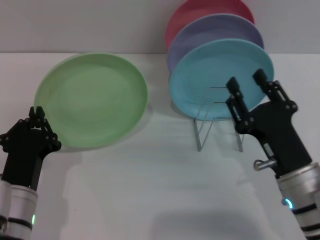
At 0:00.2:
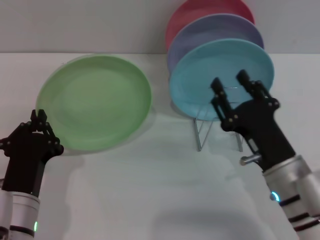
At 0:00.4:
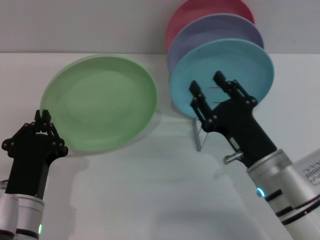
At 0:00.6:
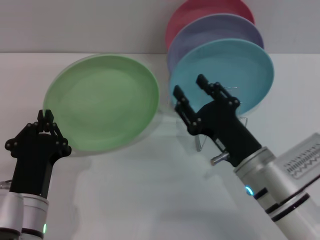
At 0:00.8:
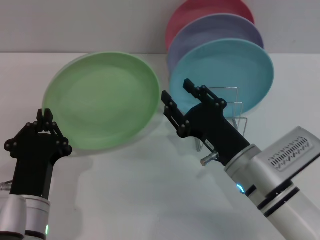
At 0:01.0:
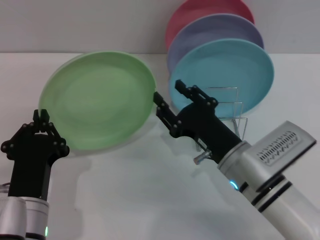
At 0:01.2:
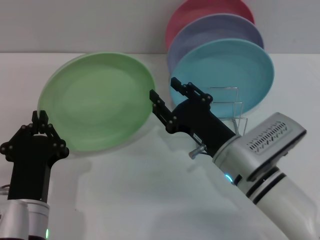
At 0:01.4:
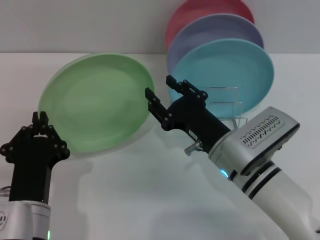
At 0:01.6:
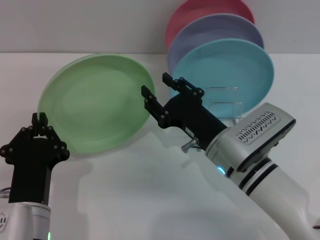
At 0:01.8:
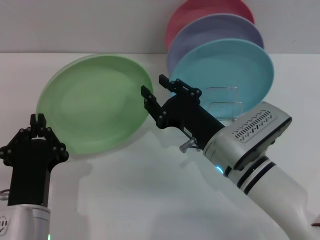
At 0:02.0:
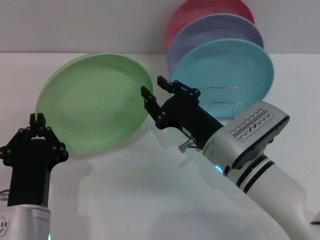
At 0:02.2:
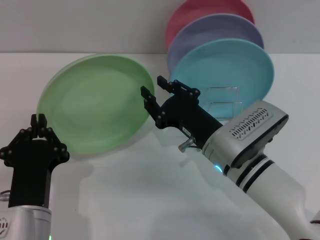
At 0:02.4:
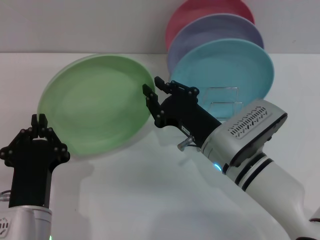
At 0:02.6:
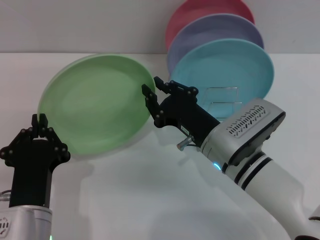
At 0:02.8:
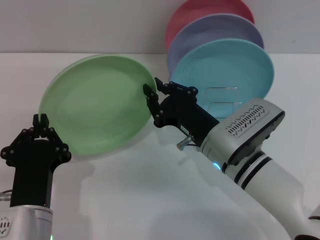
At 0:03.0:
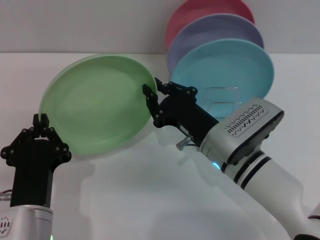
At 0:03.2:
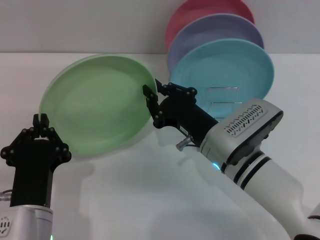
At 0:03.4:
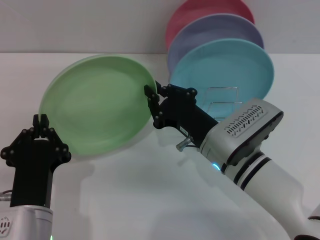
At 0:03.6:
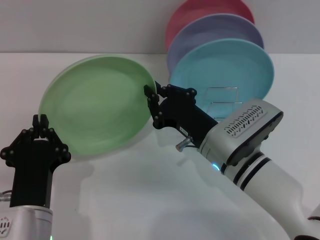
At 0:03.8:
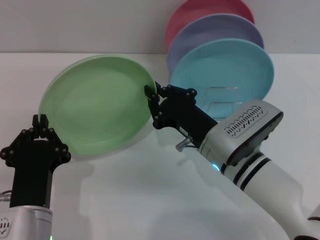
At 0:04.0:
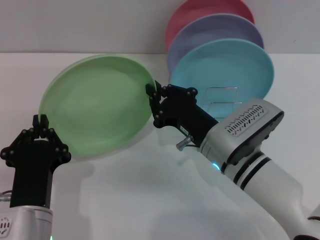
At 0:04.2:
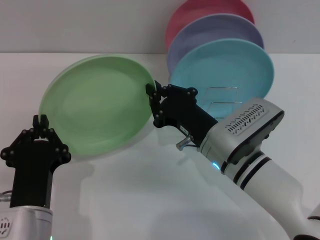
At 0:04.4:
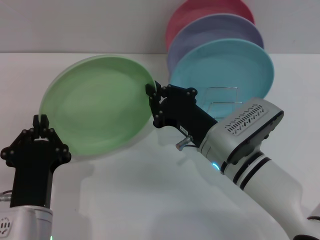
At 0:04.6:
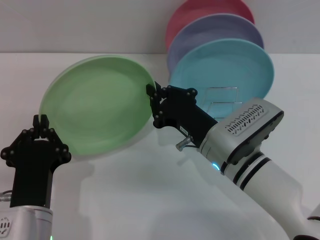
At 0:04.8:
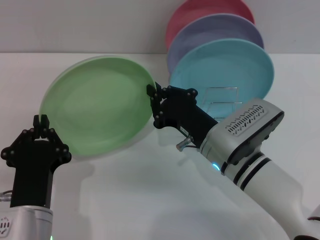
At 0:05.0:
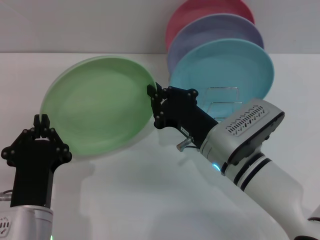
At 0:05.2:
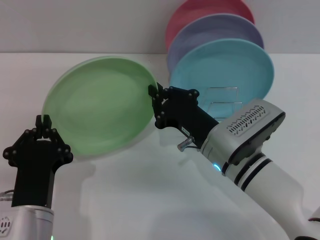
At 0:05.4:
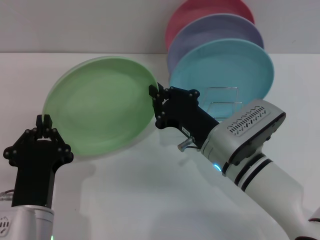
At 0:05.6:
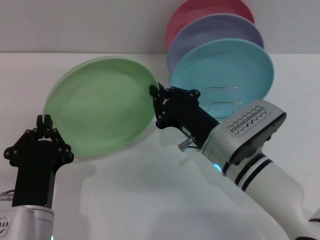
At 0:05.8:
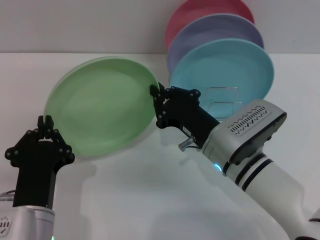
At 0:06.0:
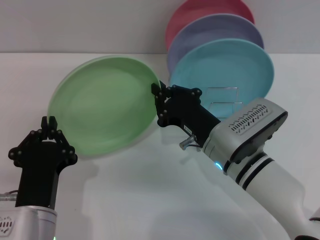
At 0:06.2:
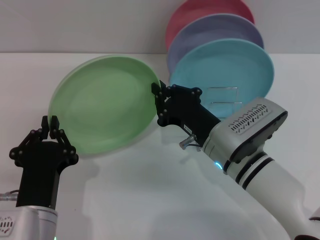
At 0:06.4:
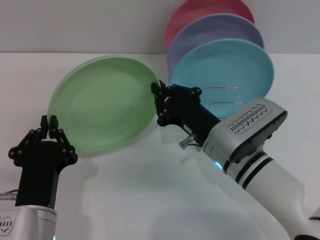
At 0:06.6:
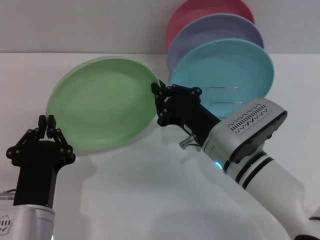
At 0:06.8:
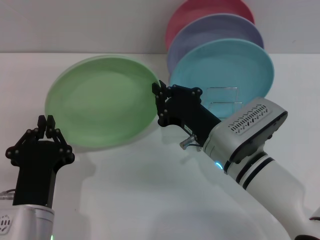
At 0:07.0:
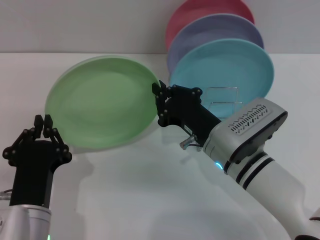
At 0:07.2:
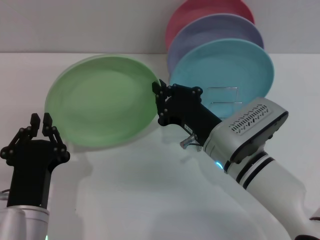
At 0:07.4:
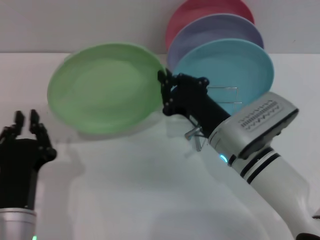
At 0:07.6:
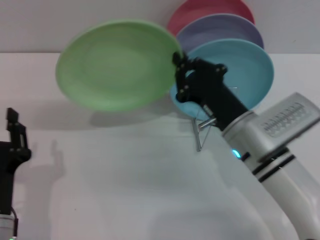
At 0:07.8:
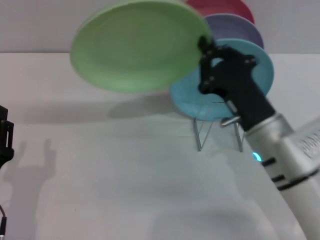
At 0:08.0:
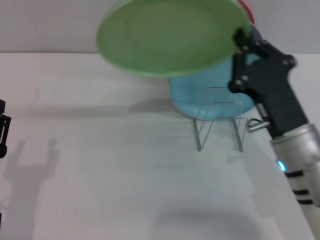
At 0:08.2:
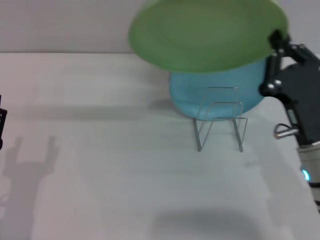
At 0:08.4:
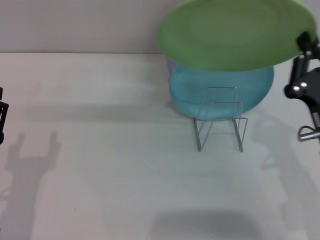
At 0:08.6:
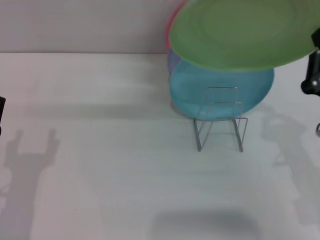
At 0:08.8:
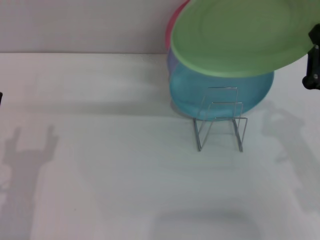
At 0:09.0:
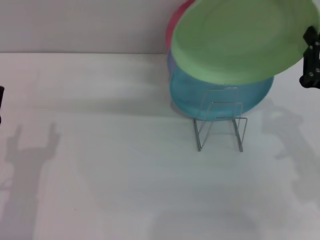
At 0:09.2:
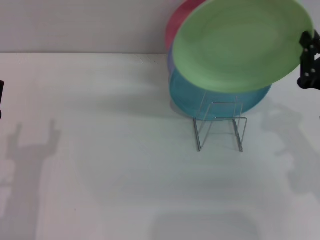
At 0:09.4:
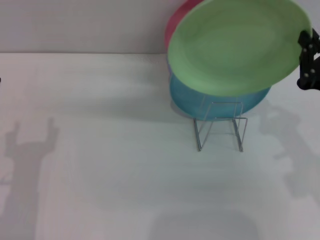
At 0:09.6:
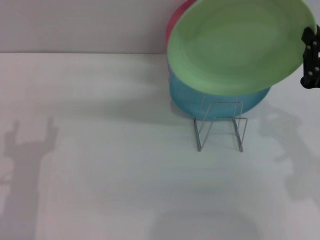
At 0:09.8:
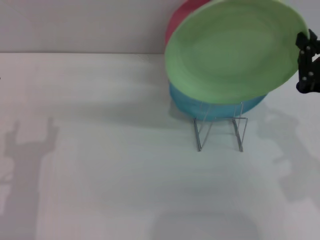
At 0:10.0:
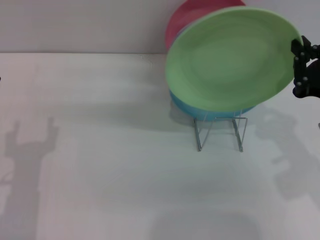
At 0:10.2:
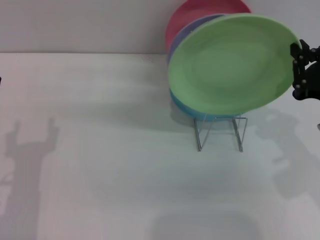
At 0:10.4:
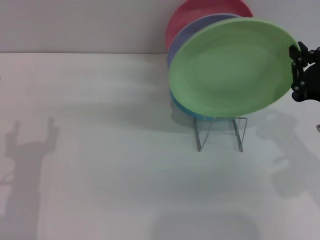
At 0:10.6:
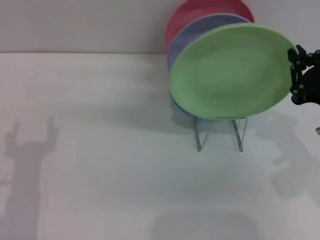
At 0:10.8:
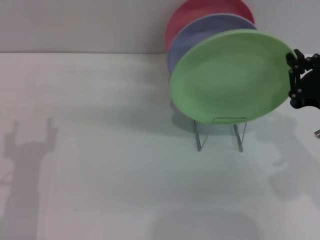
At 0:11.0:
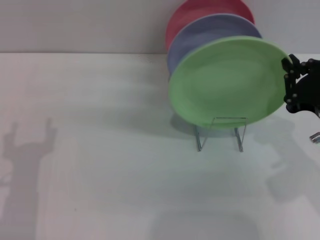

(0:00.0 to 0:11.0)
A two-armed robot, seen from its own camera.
Task of the whole recording: Grip the plate with one hand, pass it to the other, then set it on the shelf.
Step, 0:00.0 - 0:07.2: Pass the plate from the left gripper to the right gripper.
0:00.0 - 0:01.6: The right gripper is displaced to the left and forward by approximately 10 cm.
0:01.6 - 0:03.2: The right gripper closes.
0:03.2 - 0:06.2: Both grippers stay put.
0:06.2 - 0:07.8: The right gripper changes place by roughly 5 cm, while the left gripper moves to the left, some 10 cm.
0:07.8 - 0:09.4: The right gripper shifts roughly 10 cm to the right and upward; the left gripper opens up.
0:09.4 - 0:11.0: The grippers stay close to where they were, moving slightly.

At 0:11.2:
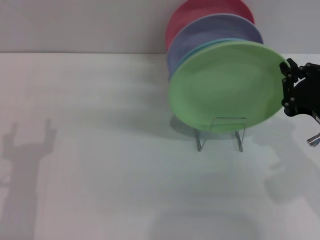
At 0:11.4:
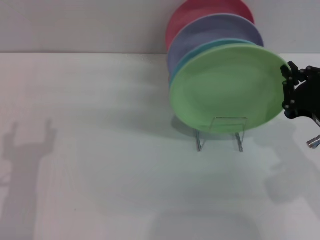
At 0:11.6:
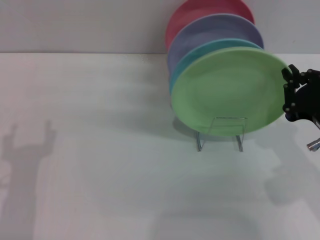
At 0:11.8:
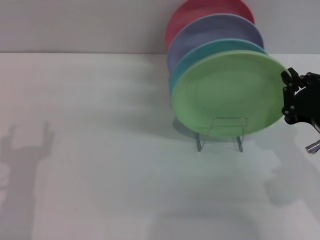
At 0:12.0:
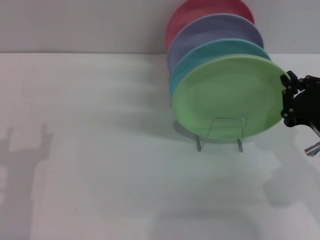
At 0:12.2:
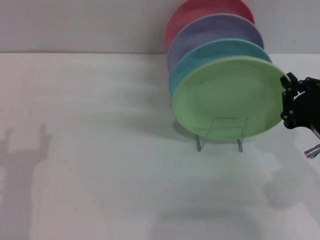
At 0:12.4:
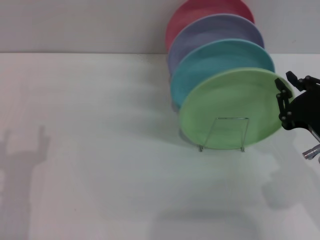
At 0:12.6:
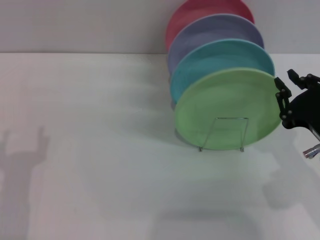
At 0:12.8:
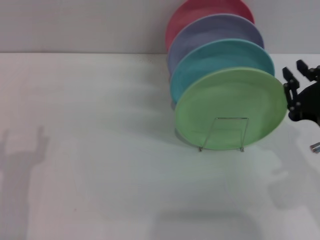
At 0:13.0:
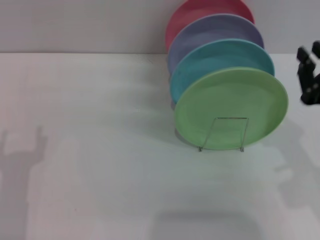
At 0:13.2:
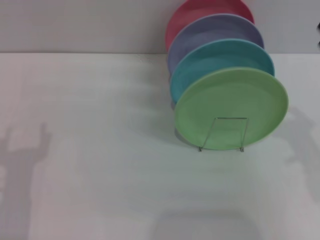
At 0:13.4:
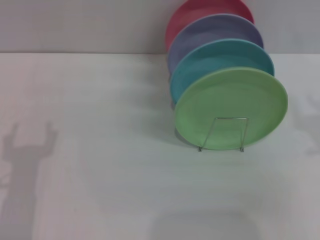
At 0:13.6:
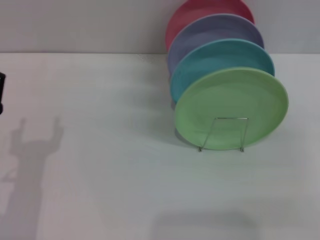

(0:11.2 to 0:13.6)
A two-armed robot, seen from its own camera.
Task of the whole recording: Grip the plate with one hand, pass it to the other, then set it on the shelf.
0:11.2 - 0:12.4: The grippers move only a little.
0:12.4 - 0:13.6: The right gripper shifts about 10 cm to the right, and opens up.
